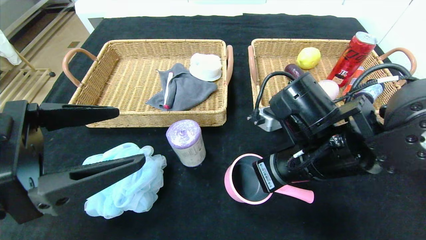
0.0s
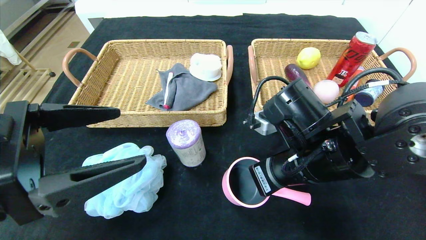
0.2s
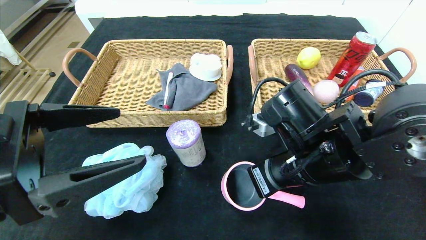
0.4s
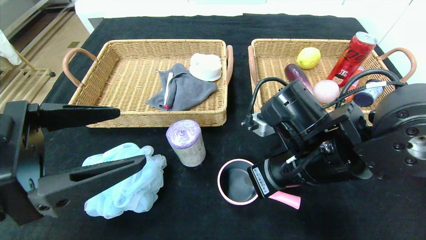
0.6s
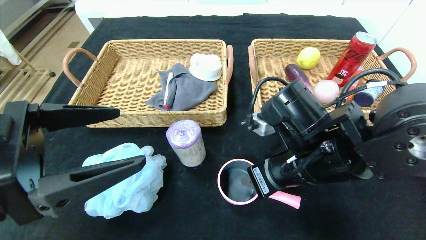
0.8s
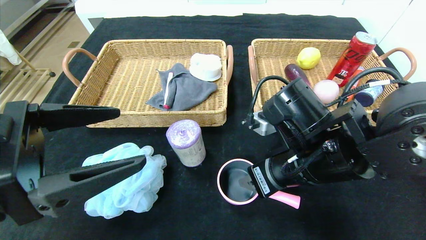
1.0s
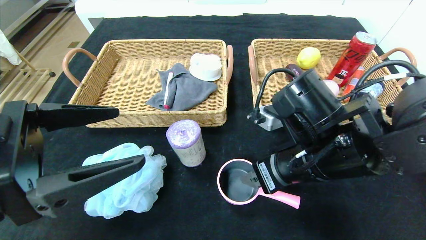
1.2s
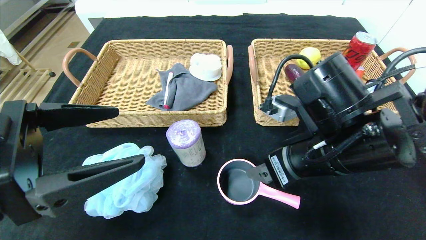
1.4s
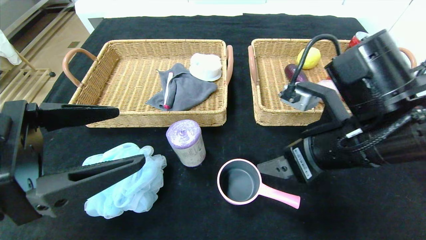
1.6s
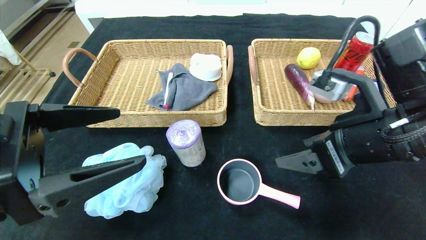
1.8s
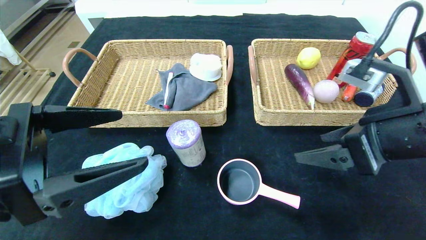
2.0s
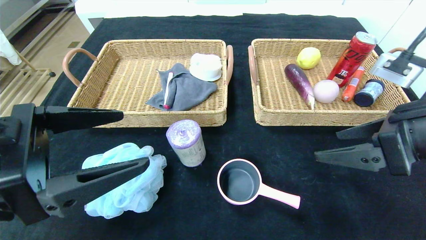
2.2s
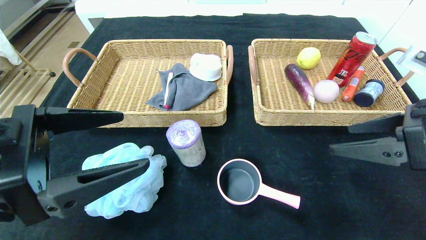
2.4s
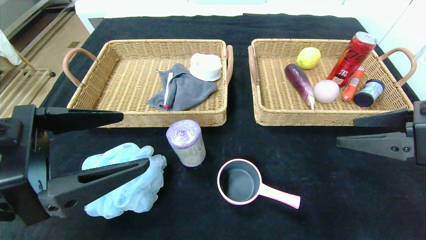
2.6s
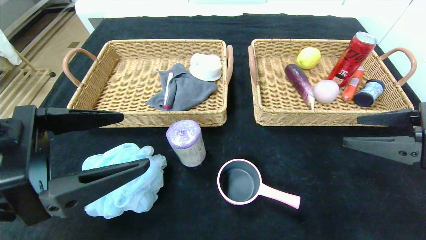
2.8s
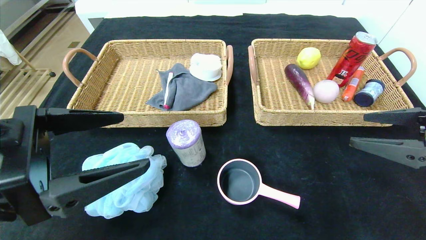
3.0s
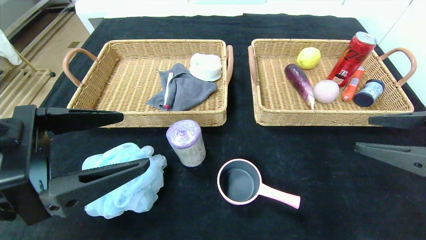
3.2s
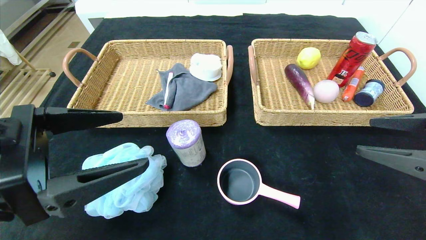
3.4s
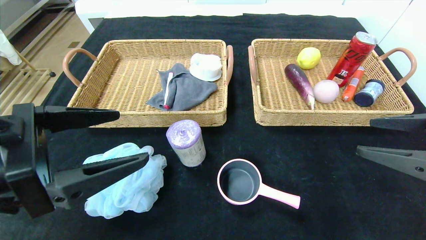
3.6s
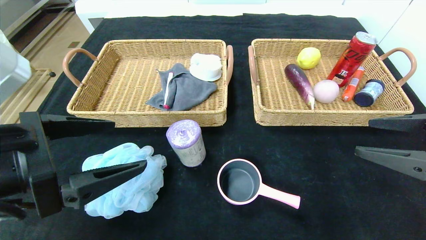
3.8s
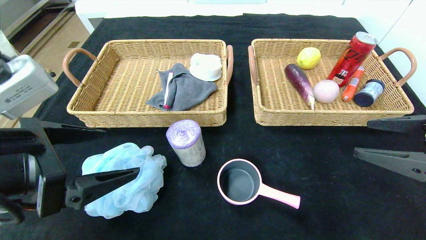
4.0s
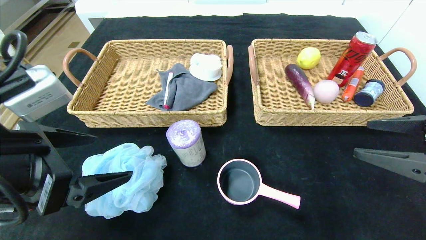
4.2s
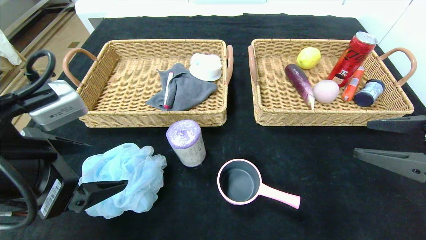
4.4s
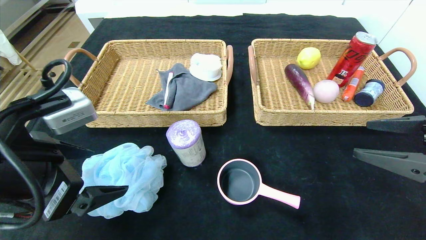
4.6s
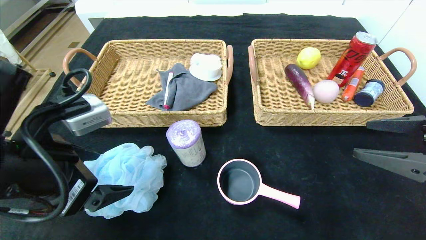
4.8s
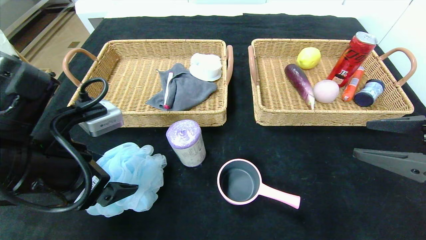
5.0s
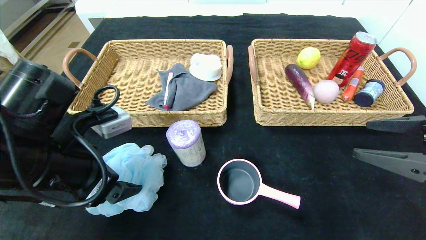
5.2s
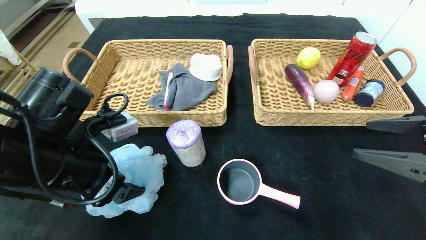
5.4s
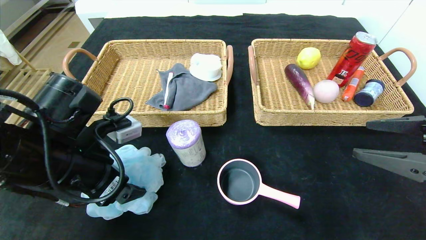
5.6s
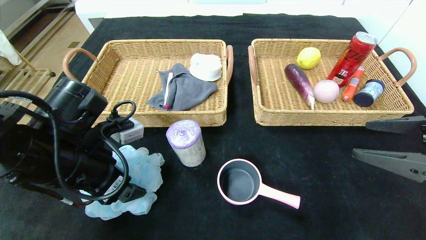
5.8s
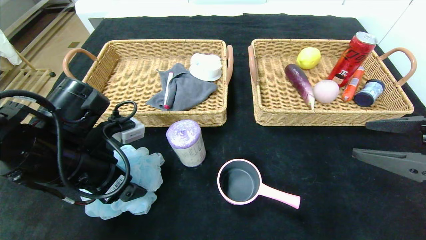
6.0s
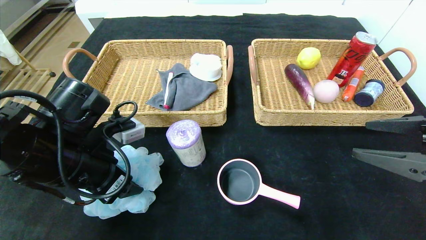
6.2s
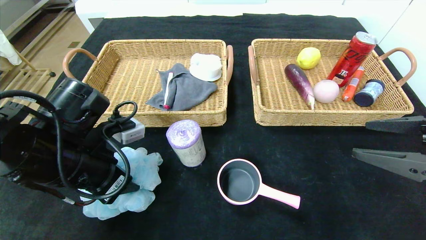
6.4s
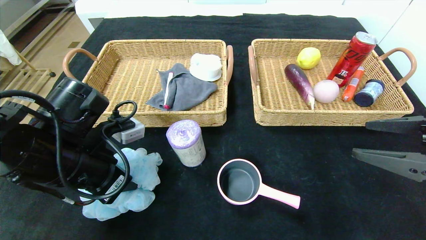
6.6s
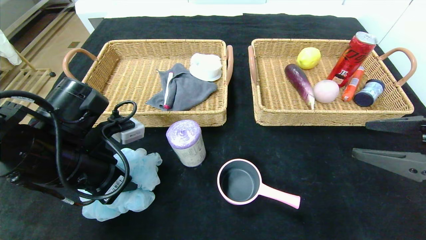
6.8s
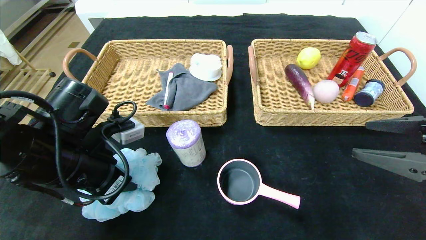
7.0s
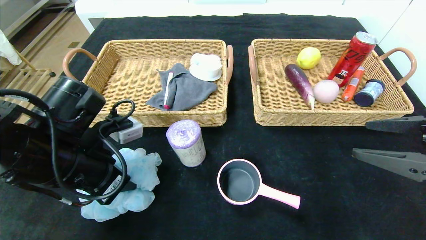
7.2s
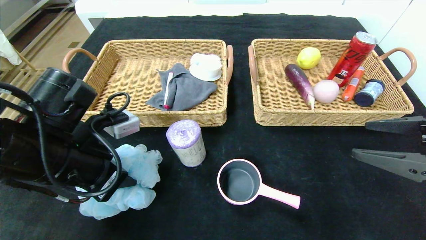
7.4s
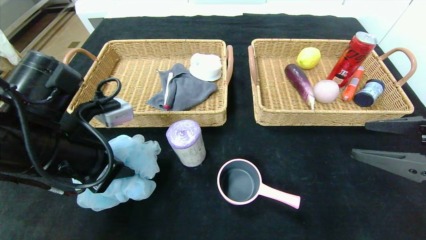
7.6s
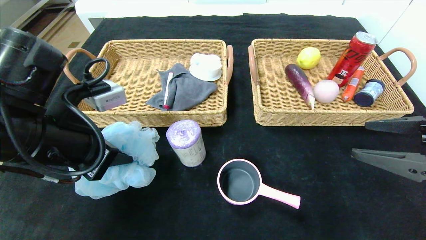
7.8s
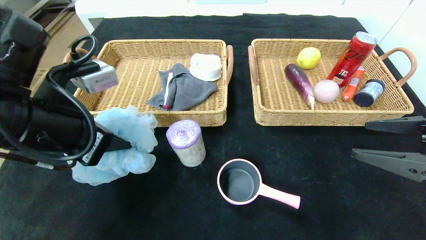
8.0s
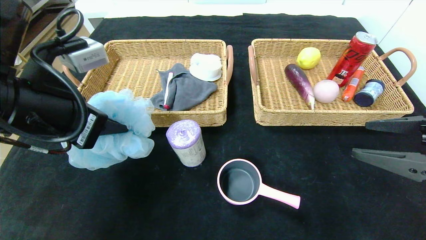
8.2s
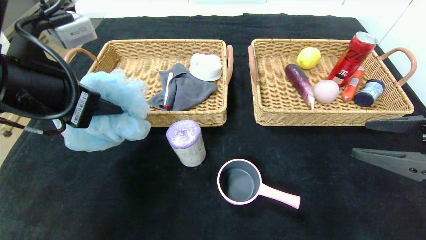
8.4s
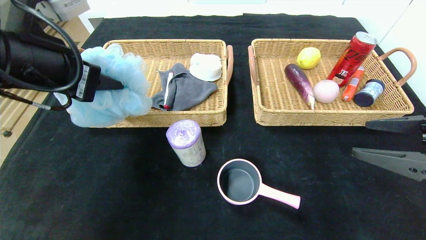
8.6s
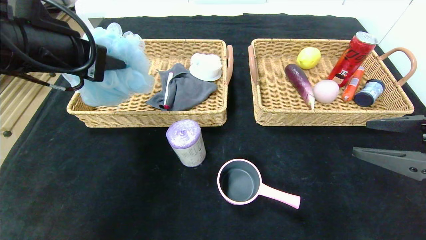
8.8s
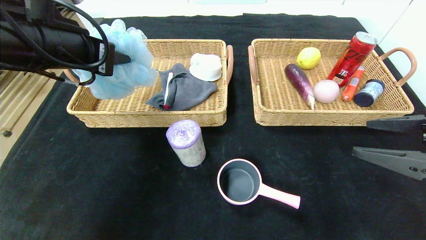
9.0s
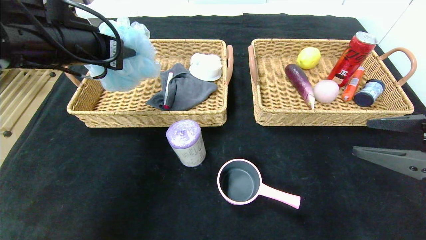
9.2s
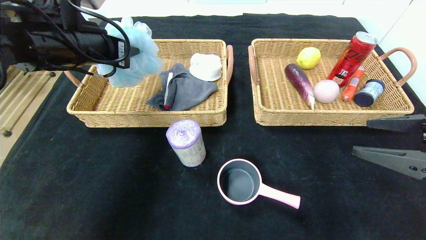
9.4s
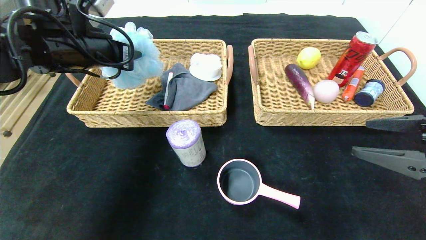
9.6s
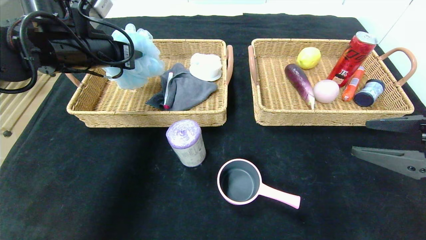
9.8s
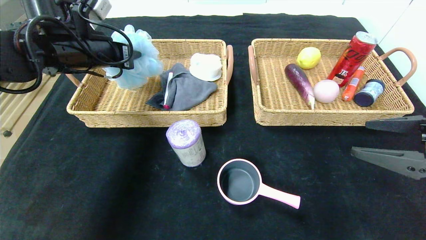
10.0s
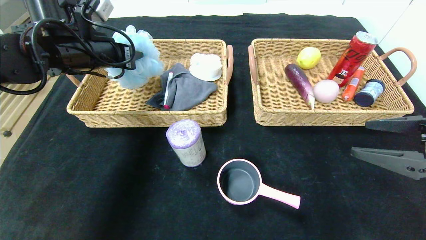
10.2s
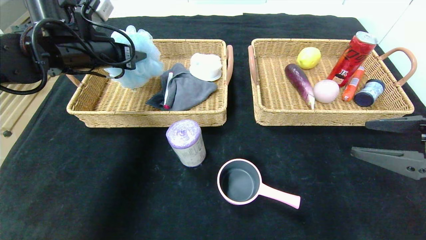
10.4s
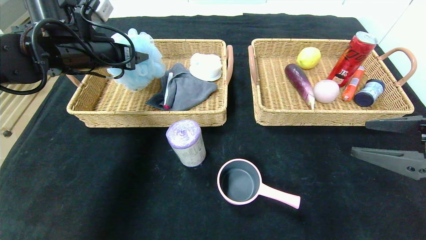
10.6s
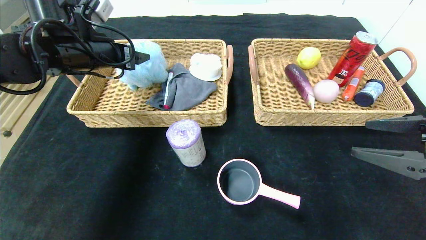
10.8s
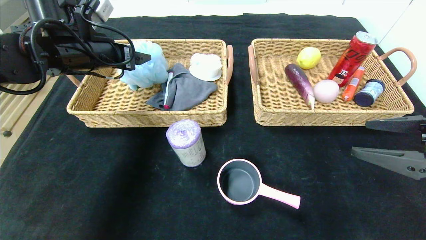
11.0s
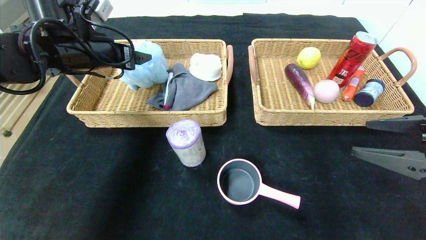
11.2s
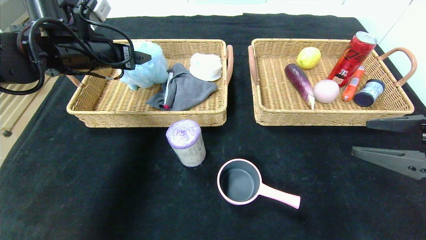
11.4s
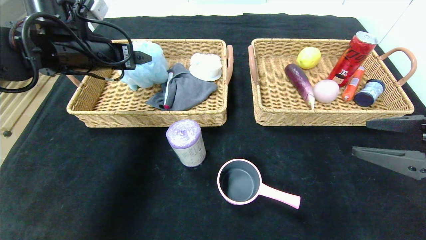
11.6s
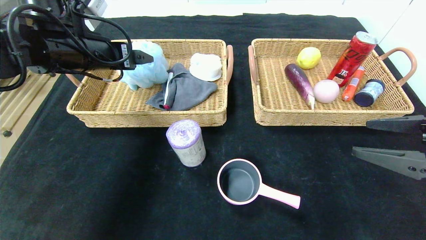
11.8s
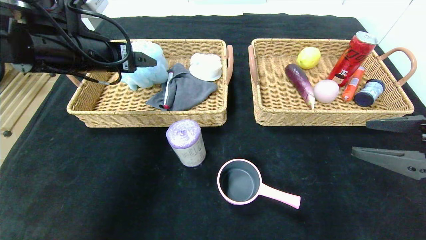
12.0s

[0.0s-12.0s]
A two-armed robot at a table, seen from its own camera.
0.0s to 1.6s: The right gripper ends up some 5 cm from where it was, and opens its fingers.
1.6s to 3.0s: The right gripper shifts about 15 cm to the right.
4.4s to 6.0s: The left gripper is displaced forward and downward by approximately 10 cm.
6.0s to 7.6s: The left gripper closes up.
7.6s to 9.0s: The left gripper shifts about 10 cm upward and forward.
9.0s to 10.4s: The left gripper goes approximately 10 cm forward.
10.4s to 12.0s: The left gripper is displaced backward by roughly 5 cm, and opens.

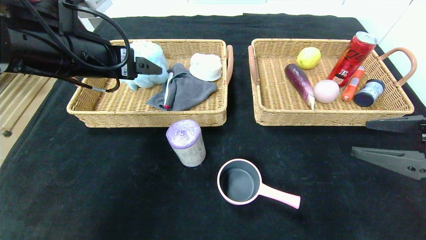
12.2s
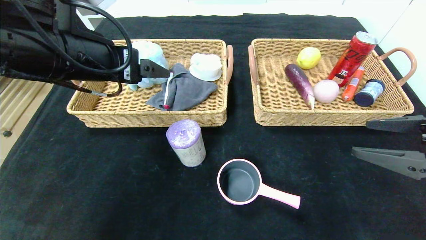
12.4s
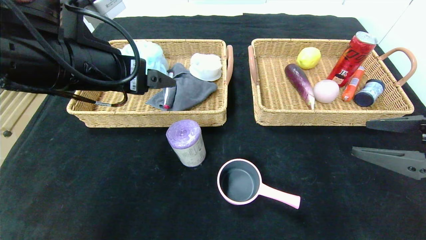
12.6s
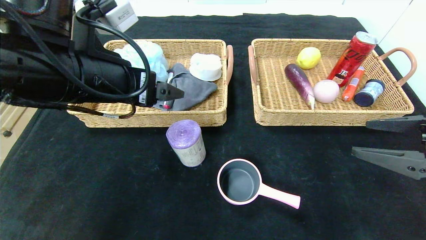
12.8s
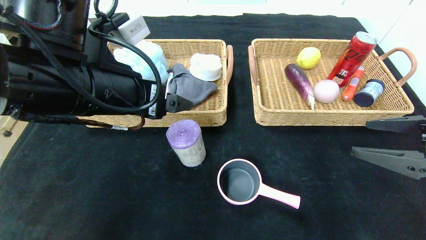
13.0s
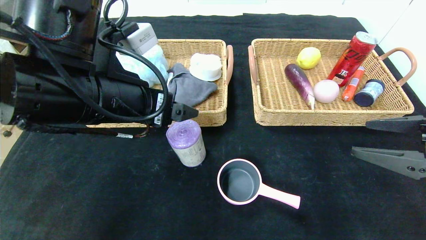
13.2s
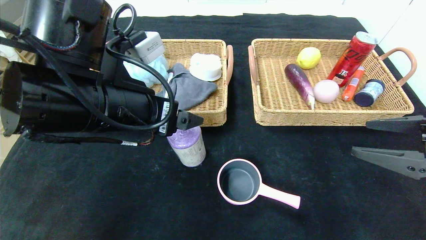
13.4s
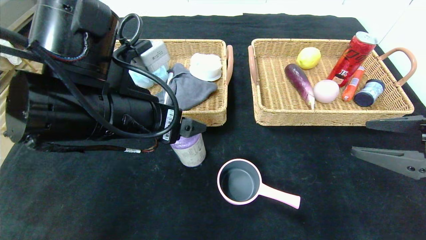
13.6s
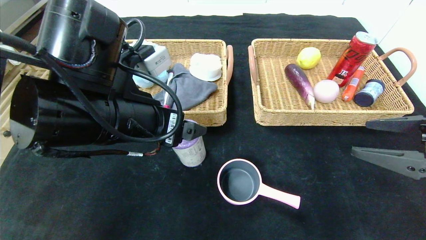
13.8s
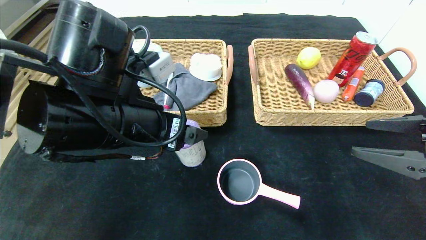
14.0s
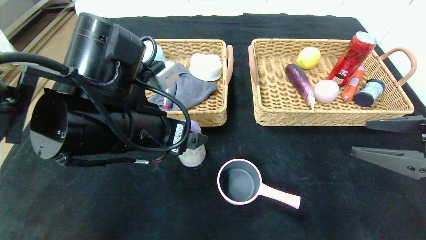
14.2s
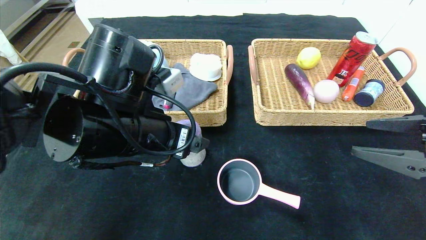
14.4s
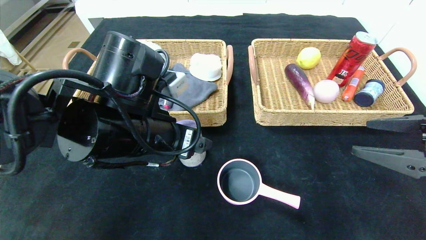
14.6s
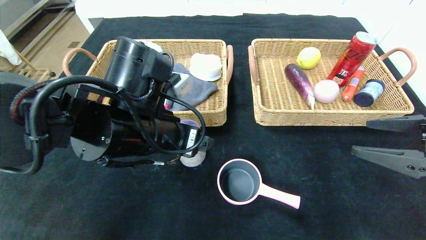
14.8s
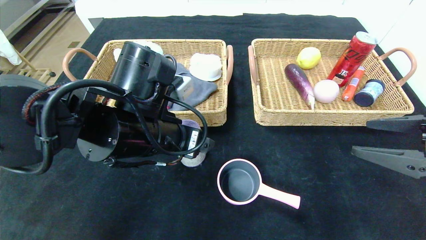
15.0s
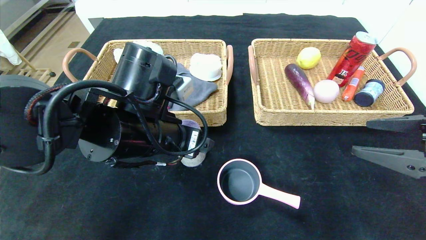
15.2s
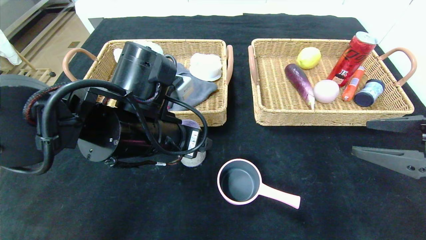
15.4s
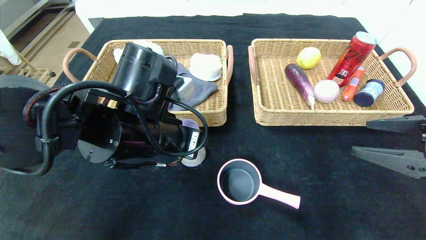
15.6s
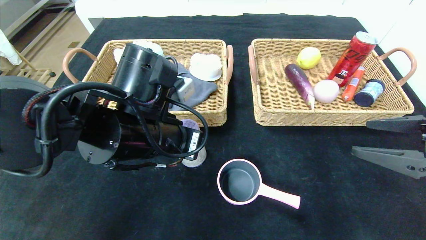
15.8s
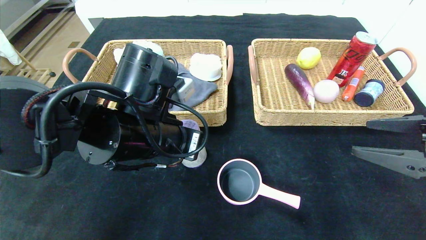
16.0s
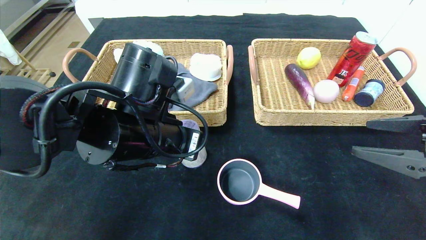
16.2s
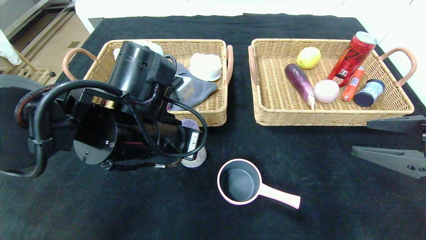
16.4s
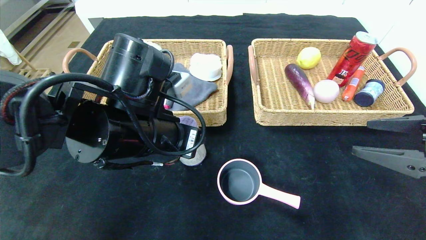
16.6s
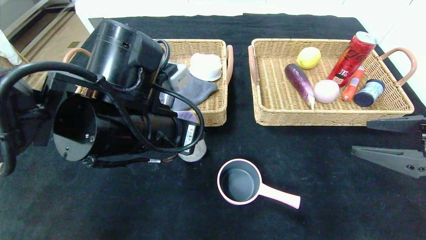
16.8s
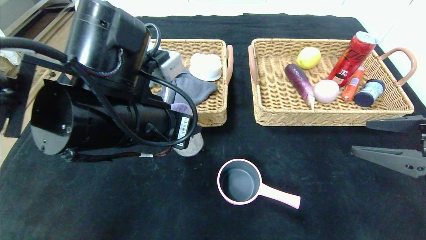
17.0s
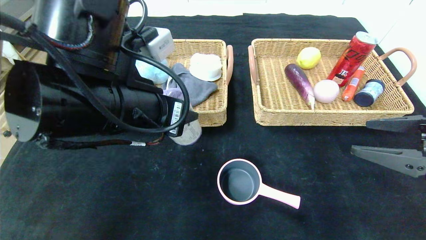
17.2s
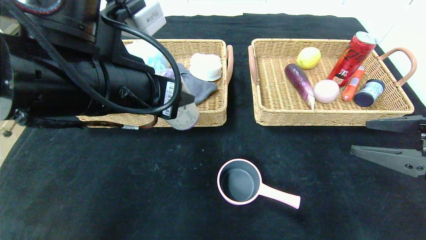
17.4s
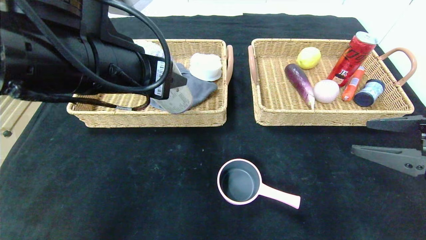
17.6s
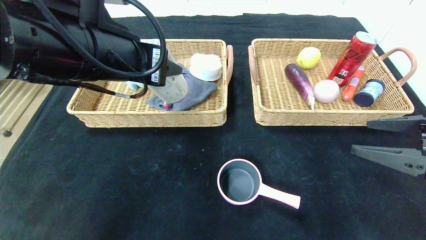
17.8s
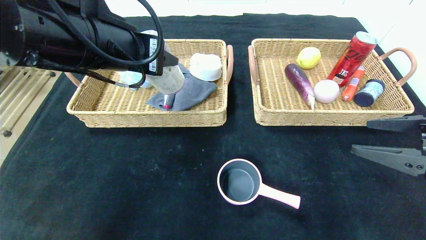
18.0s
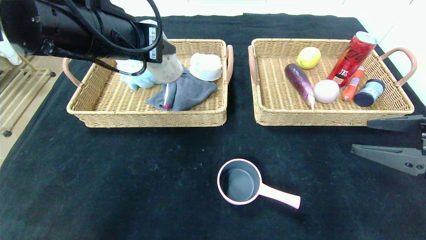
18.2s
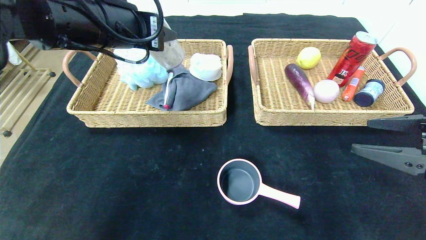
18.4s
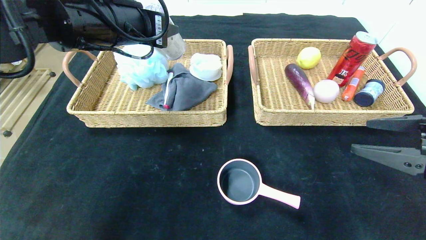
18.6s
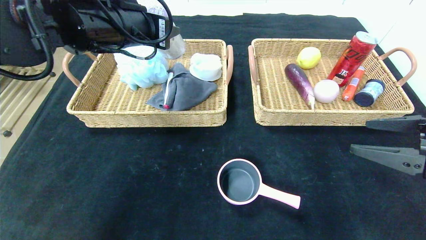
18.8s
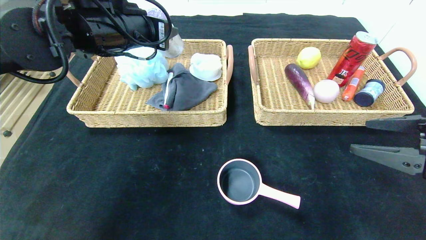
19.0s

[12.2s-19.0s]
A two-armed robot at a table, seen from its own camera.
12.2s to 13.6s: The left gripper goes about 10 cm to the right, backward and downward.
13.6s to 15.0s: The left gripper shifts by some 5 cm.
15.0s to 16.2s: The left gripper closes its fingers.
16.2s to 17.6s: The left gripper travels upward by some 10 cm.
17.6s to 19.0s: The left gripper heads forward, covering approximately 10 cm.
